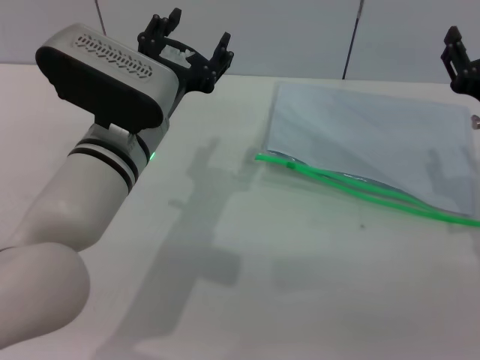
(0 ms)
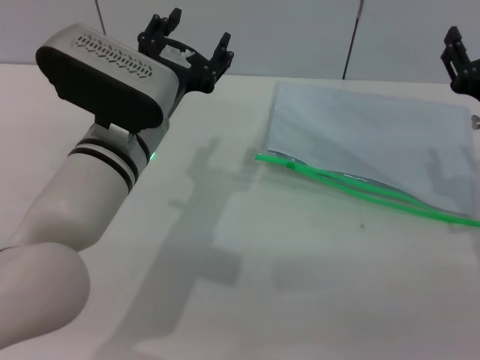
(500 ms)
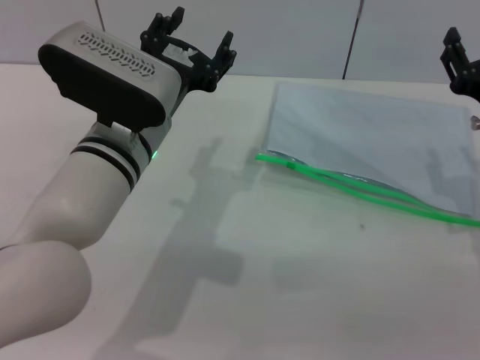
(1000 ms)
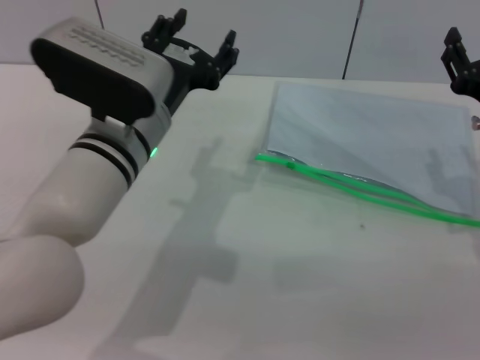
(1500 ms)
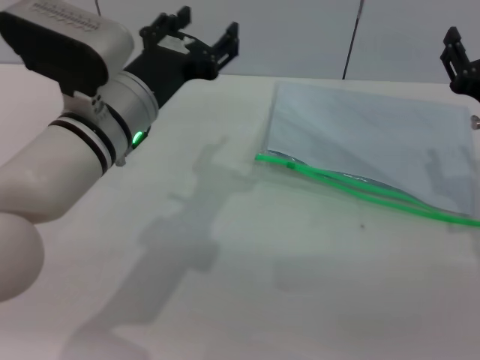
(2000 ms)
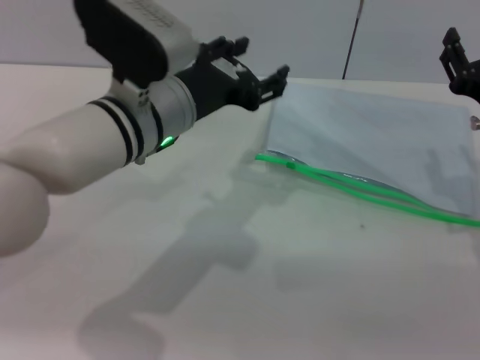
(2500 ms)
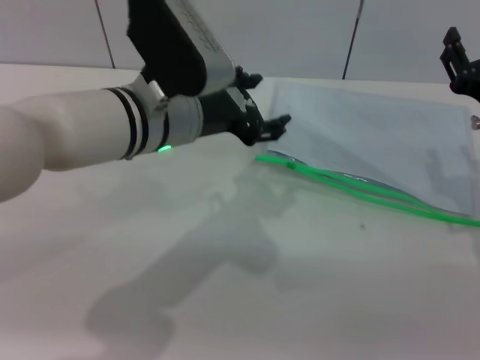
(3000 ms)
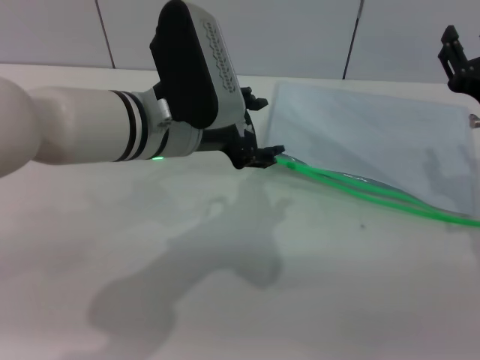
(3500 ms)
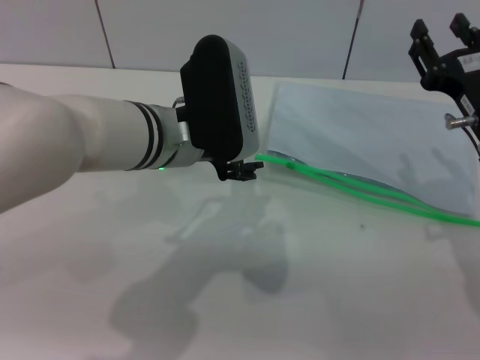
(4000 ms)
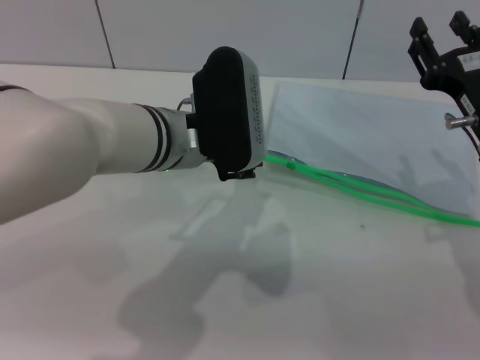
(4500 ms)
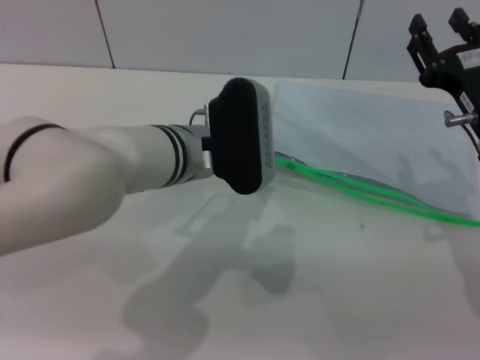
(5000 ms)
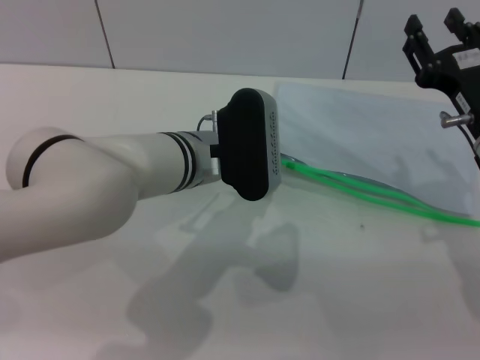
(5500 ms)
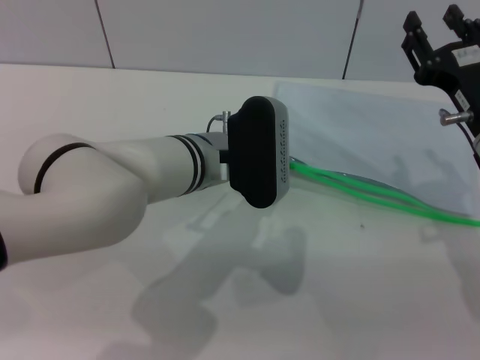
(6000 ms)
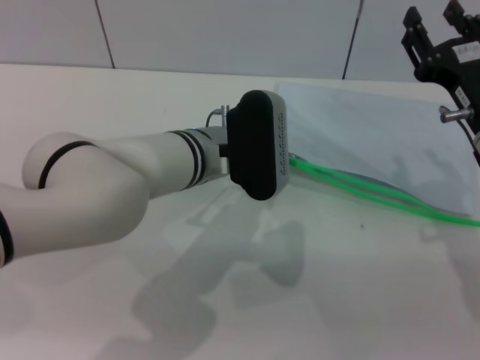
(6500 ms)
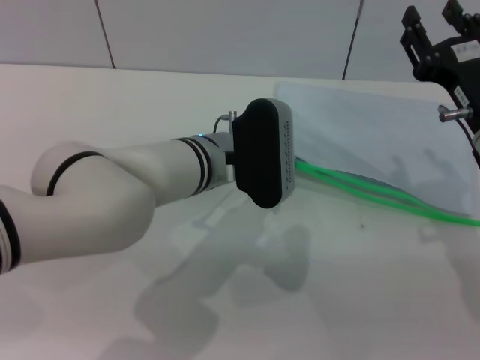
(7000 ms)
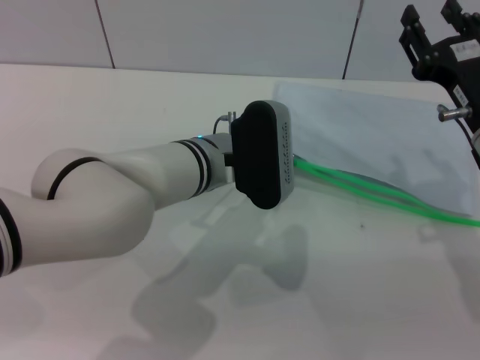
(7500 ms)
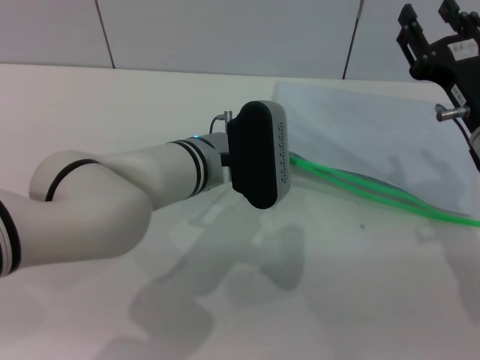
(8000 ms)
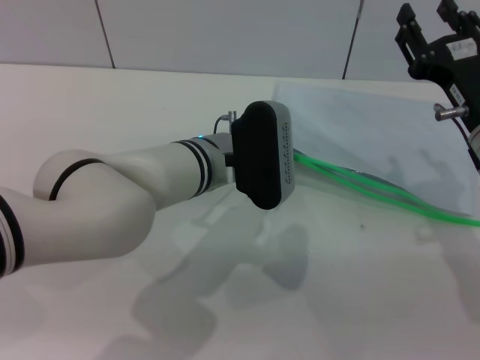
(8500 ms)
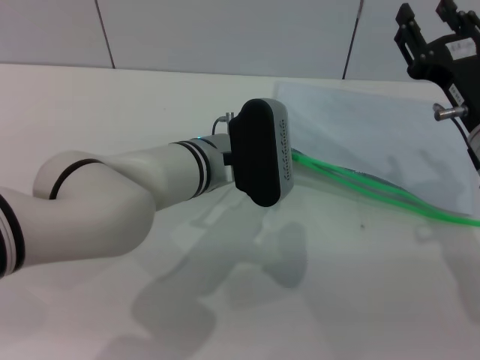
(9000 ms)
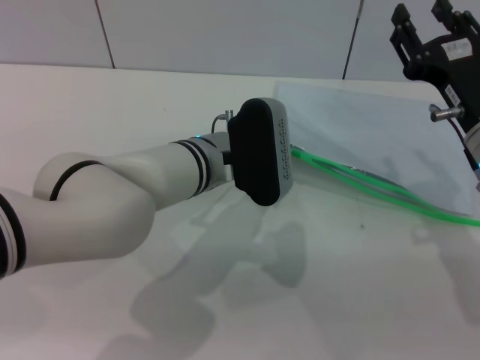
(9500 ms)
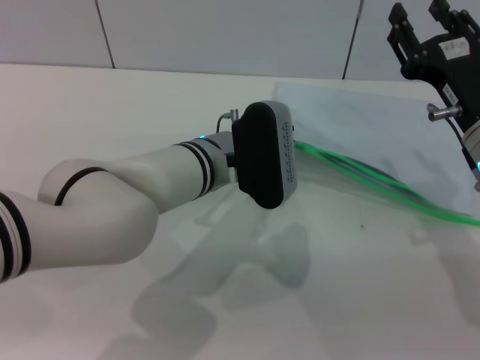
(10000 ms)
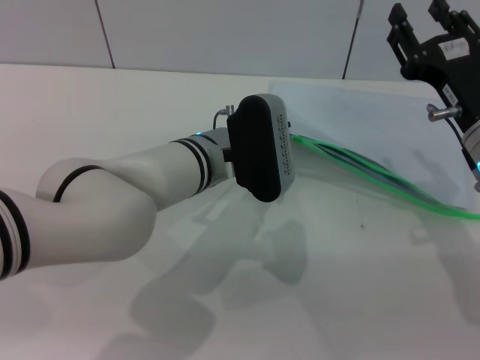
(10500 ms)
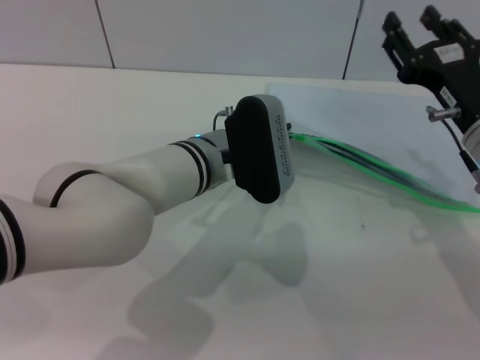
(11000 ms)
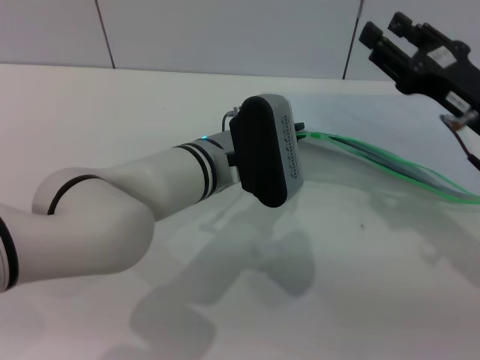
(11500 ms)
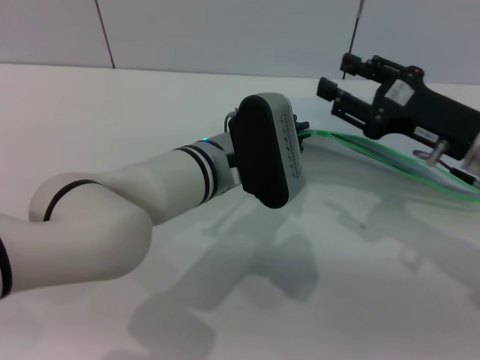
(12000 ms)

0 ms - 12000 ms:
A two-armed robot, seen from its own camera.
Step, 0 ms - 11000 ms: Pick up the transparent plastic bag with the left gripper.
0 ms - 2000 ms: The grippers stay close to where they were, moving slightly.
4000 ms - 6000 ms: The left gripper travels downward by about 5 cm.
6000 ms - 8000 ms: The grippers make only small movements.
8000 ms - 10000 ms: The left gripper closes up.

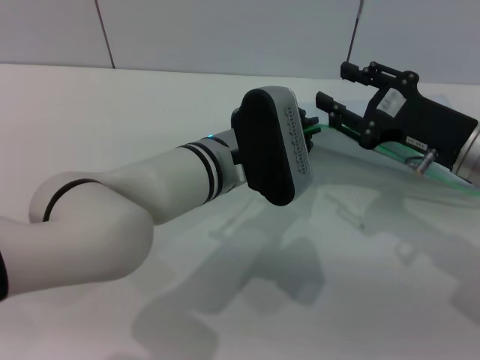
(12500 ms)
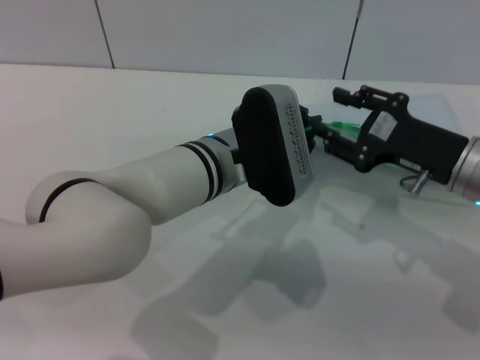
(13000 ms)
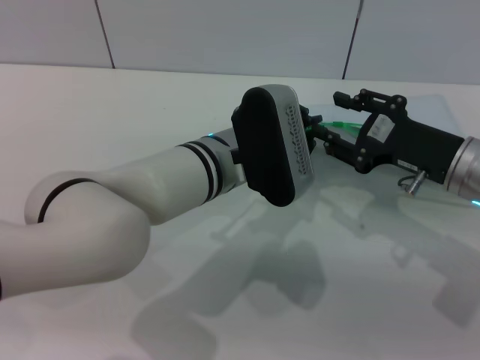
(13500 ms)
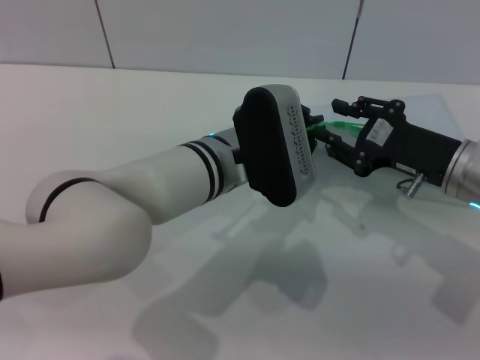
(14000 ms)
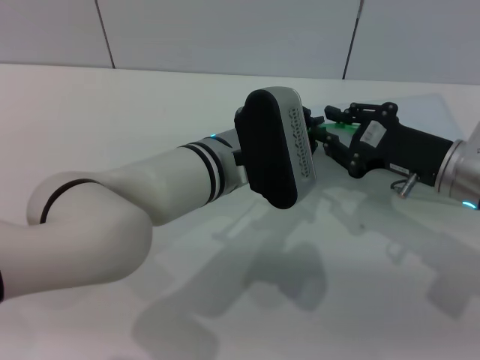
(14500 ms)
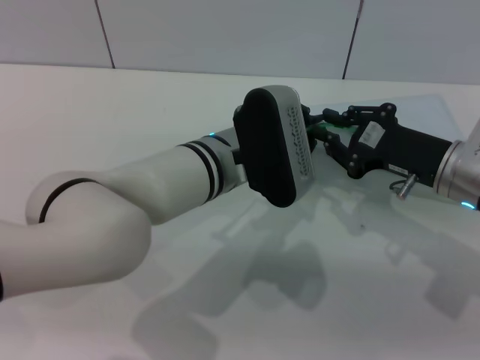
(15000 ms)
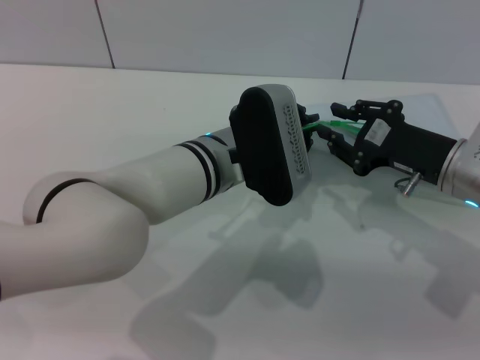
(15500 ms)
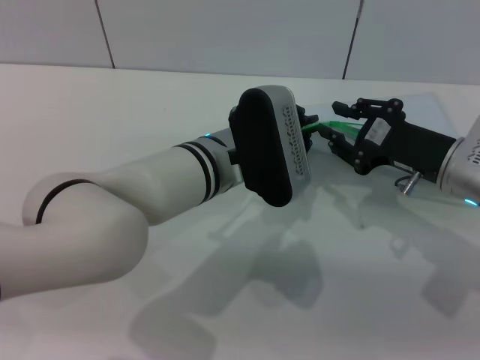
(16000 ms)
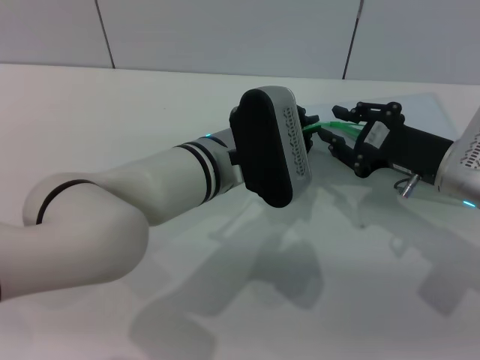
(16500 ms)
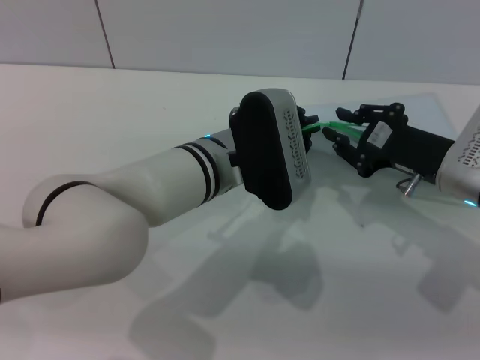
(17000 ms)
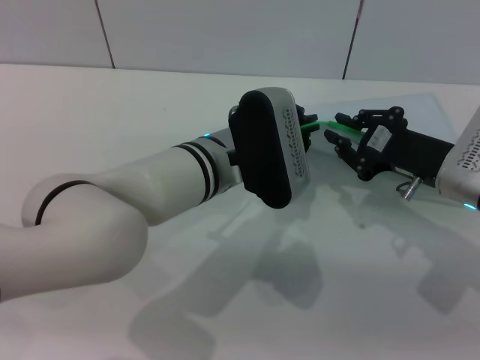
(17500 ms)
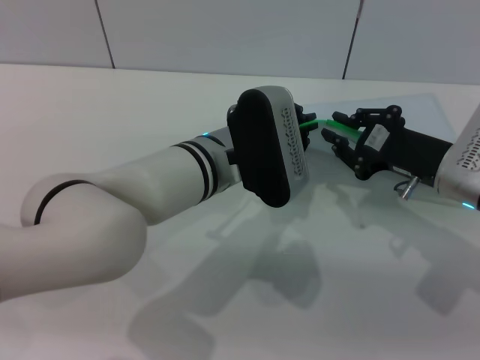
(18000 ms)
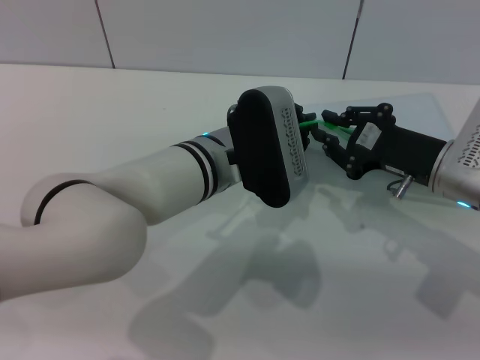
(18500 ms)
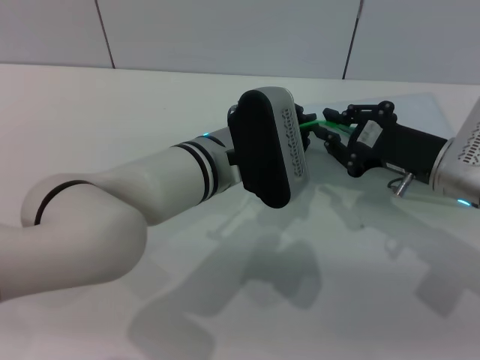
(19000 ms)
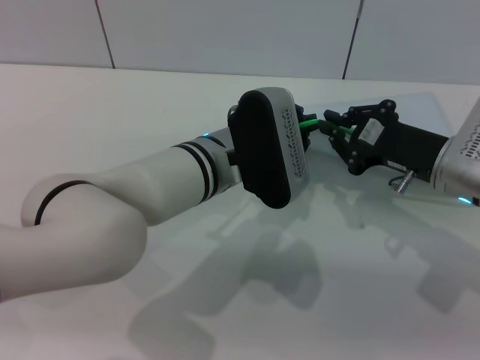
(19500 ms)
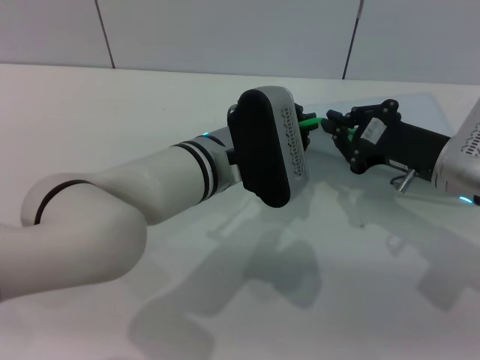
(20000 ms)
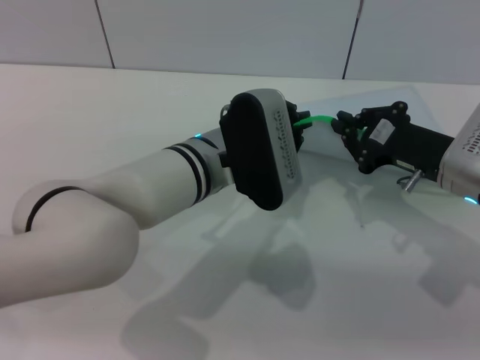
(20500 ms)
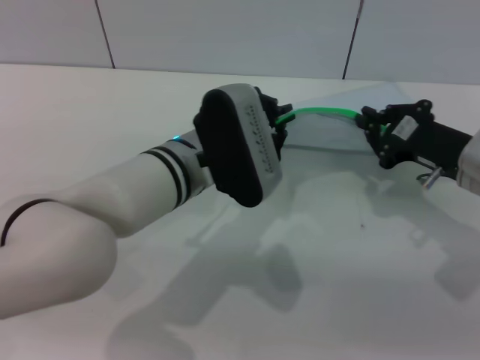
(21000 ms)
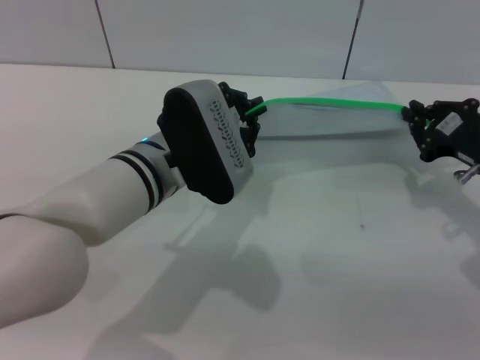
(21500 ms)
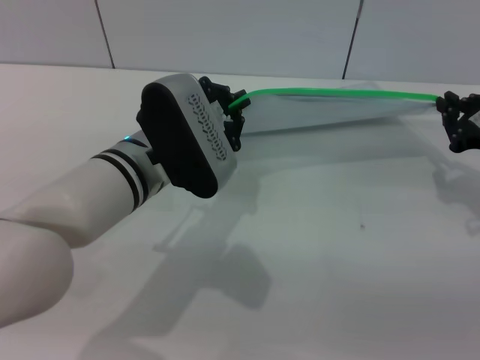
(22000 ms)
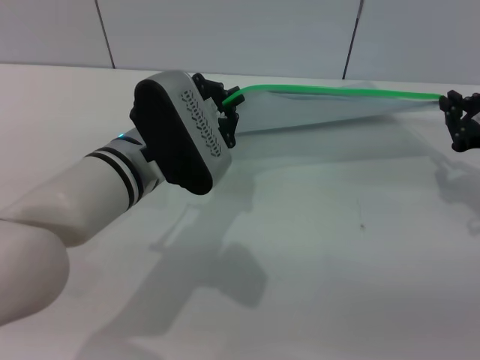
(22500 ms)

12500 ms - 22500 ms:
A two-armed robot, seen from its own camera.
12500 ms - 16500 ms: There are only small adjustments of the grippers.
16500 ms - 18500 ms: The two grippers keep their place.
18500 ms - 20500 ms: The grippers stay close to where they were, moving slightly.
20500 ms - 22500 ms: The right gripper goes about 10 cm to the right. The left gripper is displaced to the left by about 5 cm.

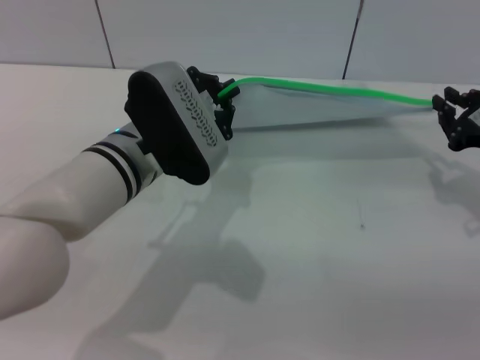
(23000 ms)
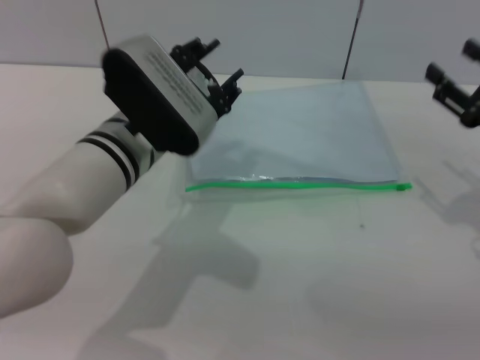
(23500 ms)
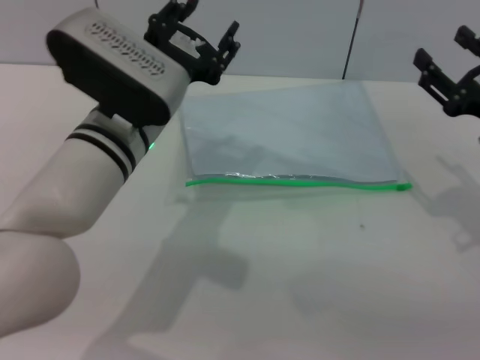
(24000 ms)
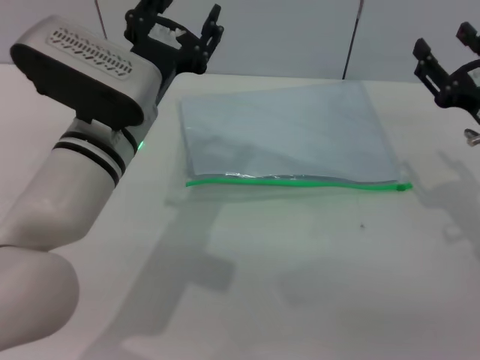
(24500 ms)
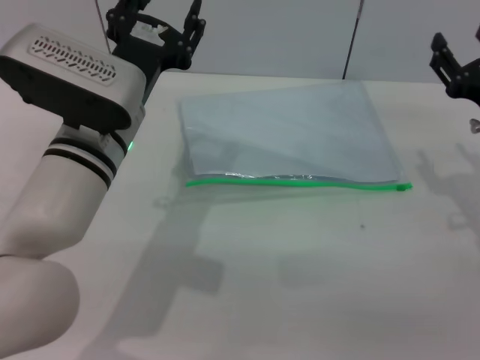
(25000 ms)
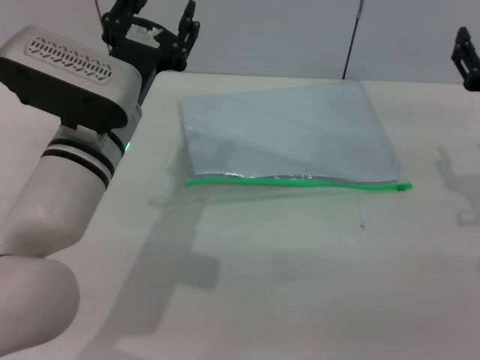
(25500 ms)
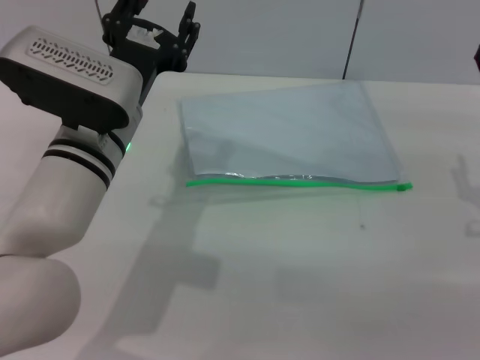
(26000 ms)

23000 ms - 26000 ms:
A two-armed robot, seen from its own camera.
Step, 23500 ms - 24000 ms: Place the transparent plastic bag.
23000 ms - 24500 ms: The left gripper opens its fingers, while the right gripper changes place by some 5 cm, and opens up.

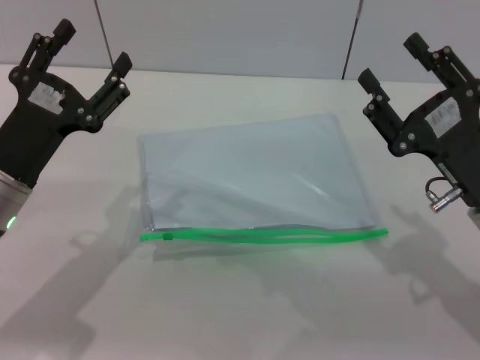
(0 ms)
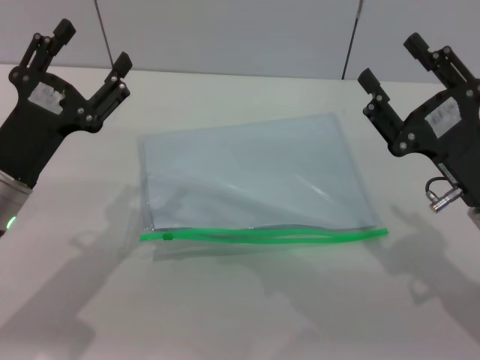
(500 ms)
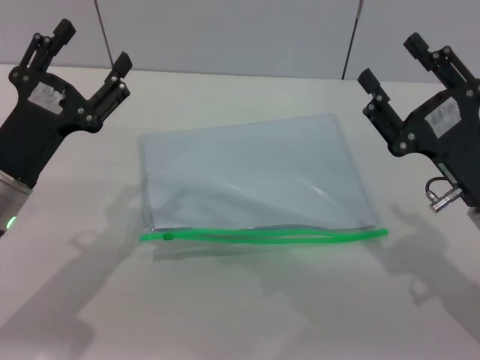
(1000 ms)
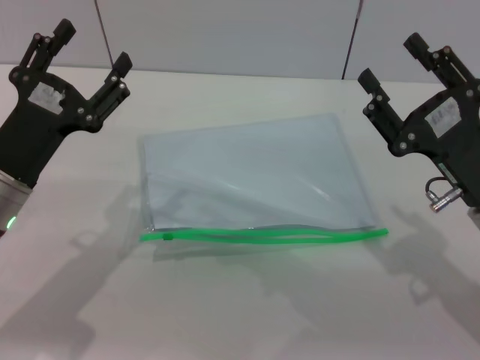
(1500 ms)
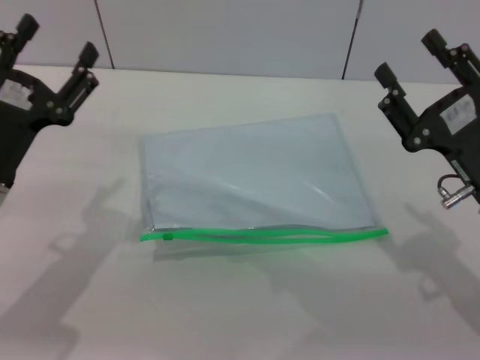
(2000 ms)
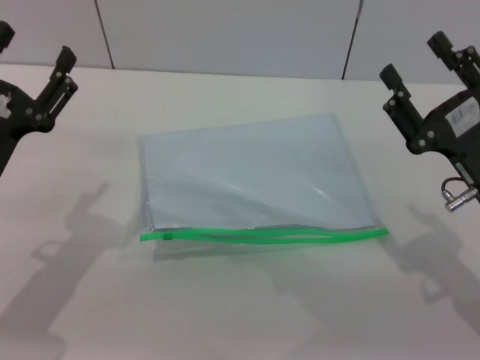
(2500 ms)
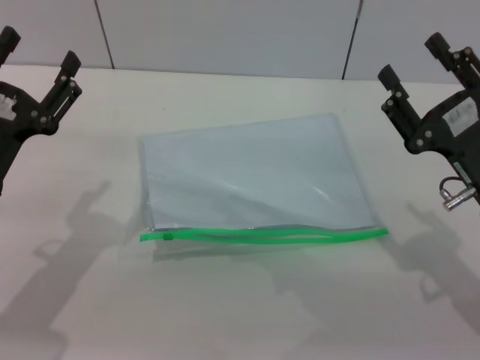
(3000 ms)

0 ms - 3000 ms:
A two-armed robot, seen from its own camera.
0 ms - 1500 ms: Neither gripper changes place.
1500 ms - 3000 ms: The grippers move only a little.
